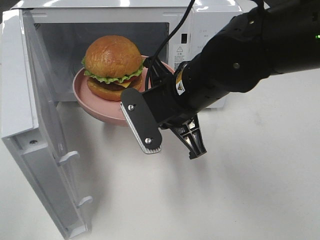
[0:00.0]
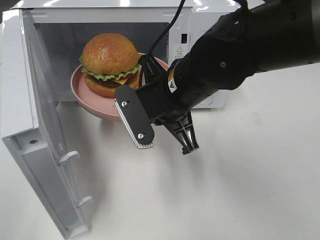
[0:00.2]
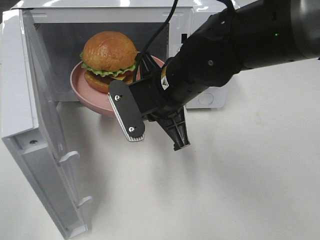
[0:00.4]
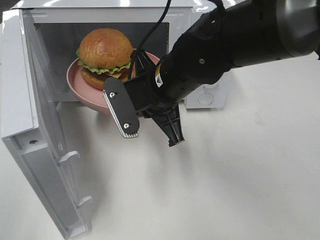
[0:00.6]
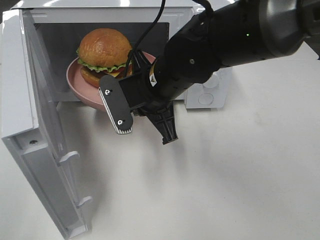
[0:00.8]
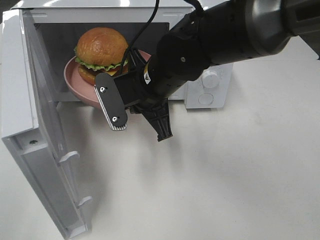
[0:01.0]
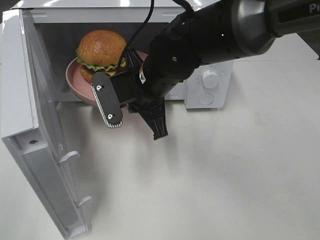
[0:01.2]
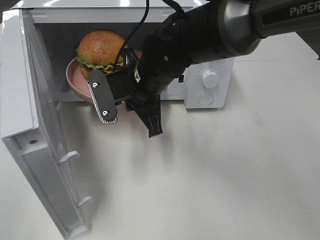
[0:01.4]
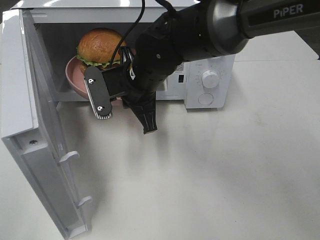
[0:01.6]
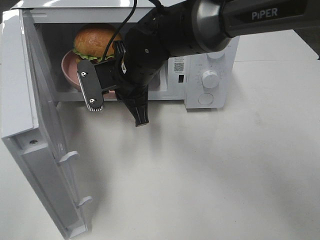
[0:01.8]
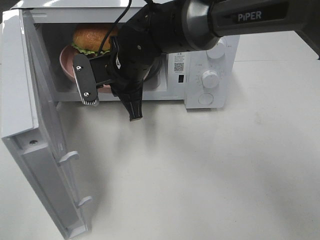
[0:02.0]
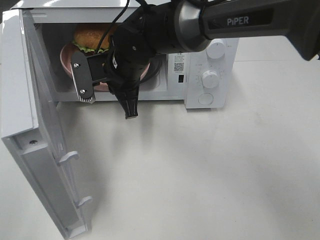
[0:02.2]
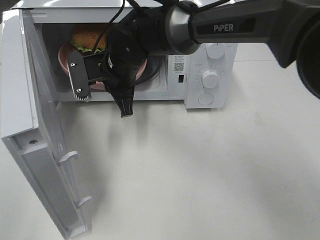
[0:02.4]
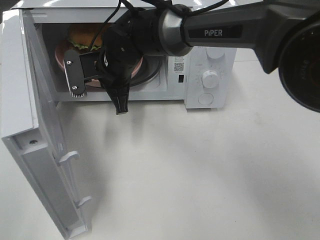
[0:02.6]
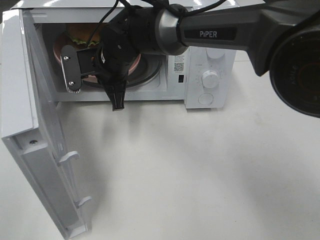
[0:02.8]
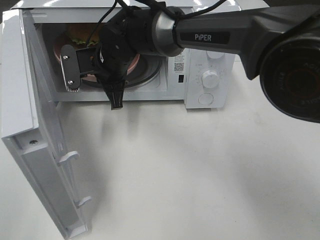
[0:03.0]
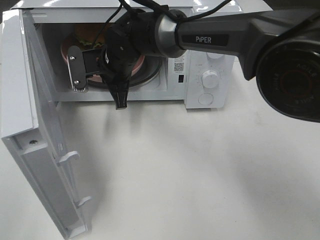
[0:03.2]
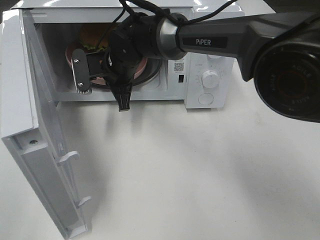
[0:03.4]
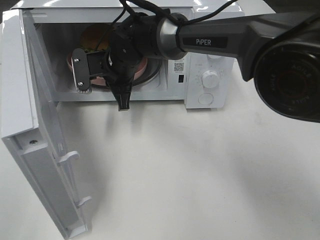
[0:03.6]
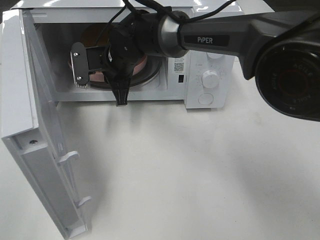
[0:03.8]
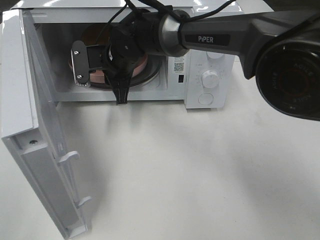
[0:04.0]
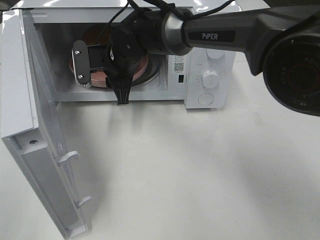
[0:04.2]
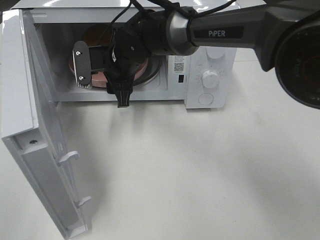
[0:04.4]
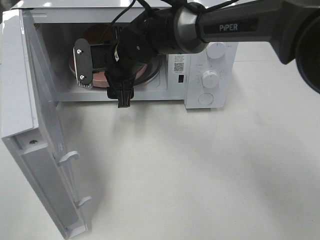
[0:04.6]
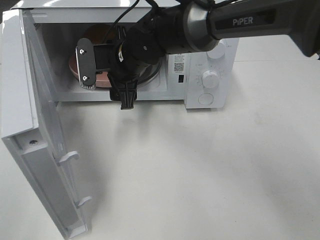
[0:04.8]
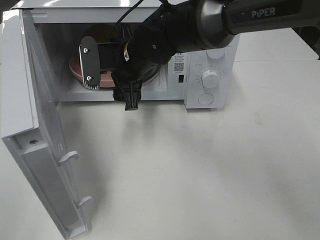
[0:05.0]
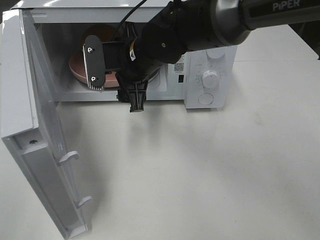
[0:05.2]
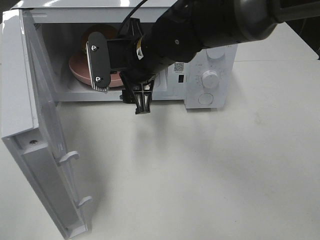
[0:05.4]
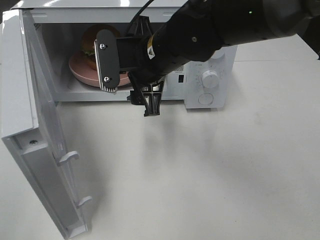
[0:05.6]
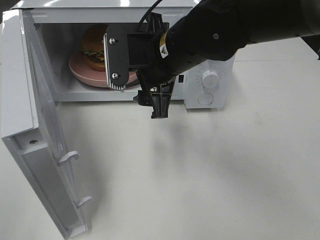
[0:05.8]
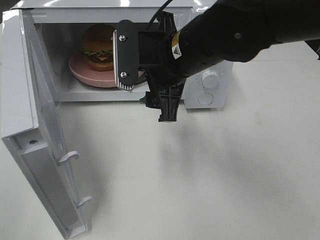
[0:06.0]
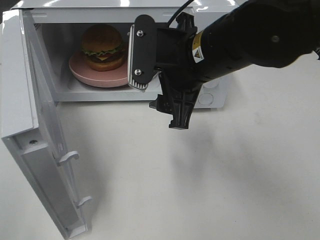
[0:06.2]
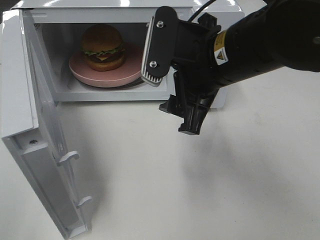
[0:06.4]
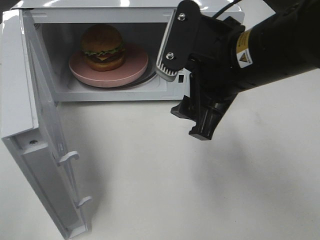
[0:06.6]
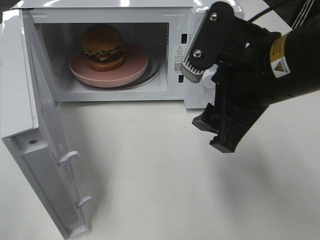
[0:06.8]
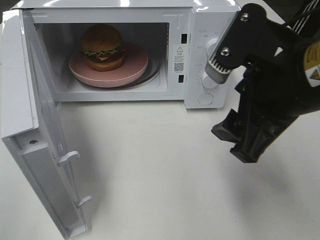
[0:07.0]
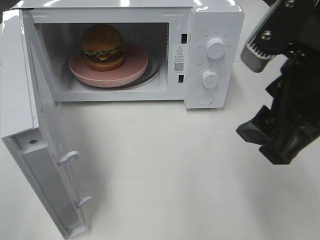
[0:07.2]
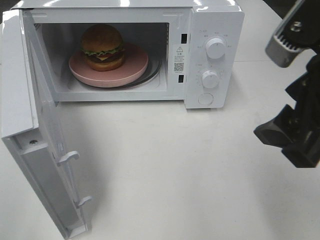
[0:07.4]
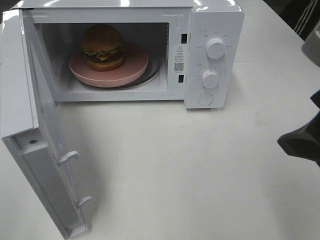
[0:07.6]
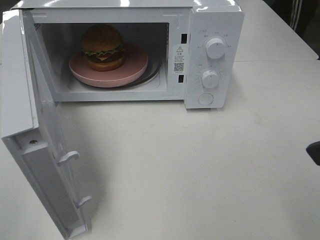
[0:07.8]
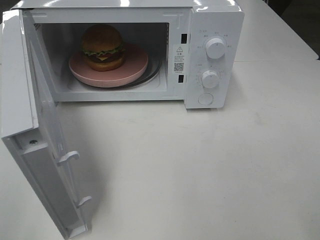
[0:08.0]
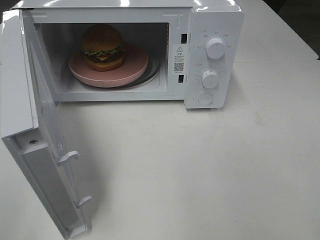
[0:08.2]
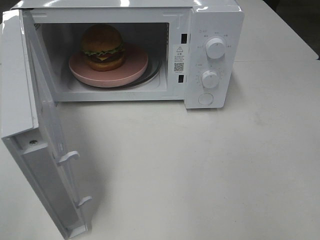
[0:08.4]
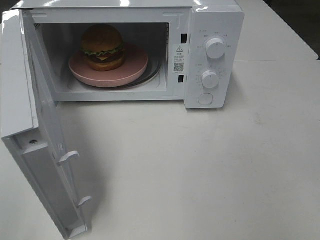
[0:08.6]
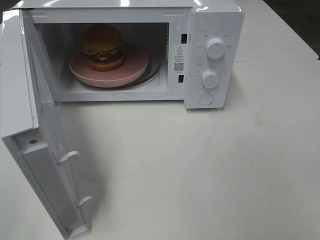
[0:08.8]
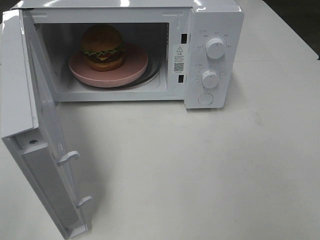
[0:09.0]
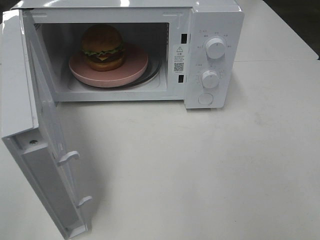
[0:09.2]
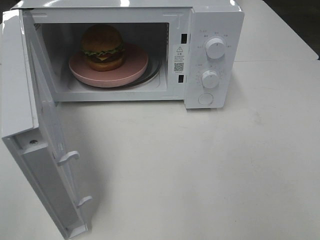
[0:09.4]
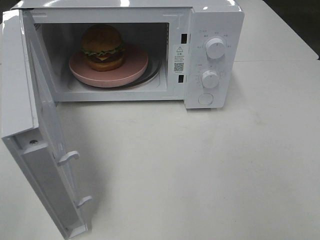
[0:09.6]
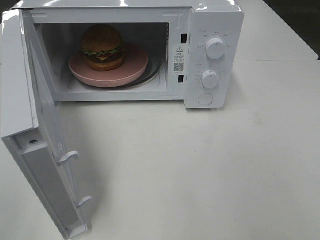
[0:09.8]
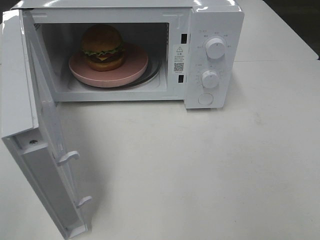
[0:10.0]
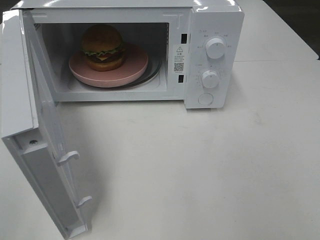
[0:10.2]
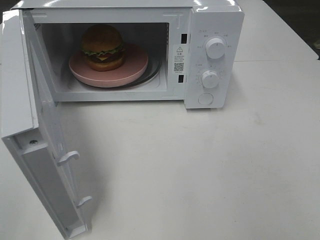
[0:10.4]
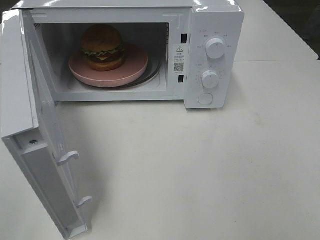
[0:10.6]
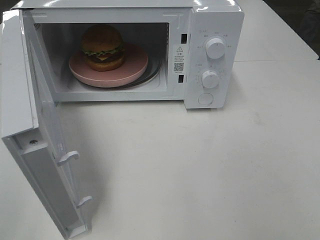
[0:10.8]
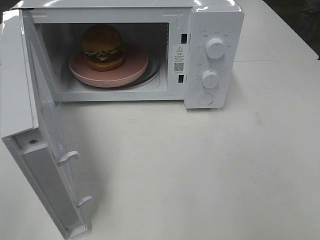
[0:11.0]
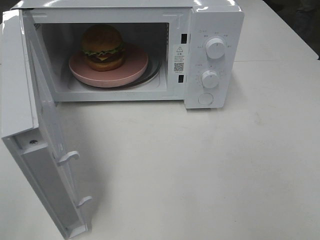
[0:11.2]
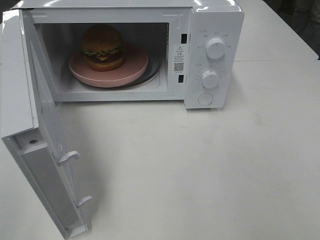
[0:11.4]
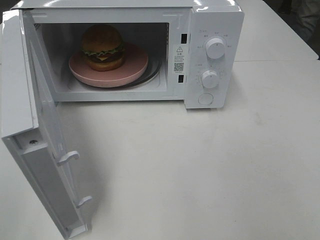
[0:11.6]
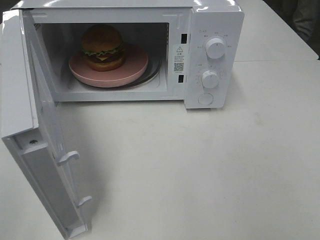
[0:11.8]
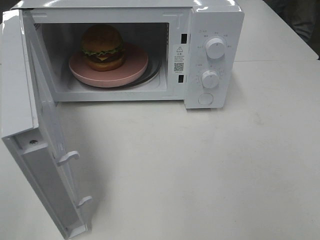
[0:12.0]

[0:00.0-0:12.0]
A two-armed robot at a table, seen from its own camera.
Task of the whole recording: Heat the burger.
Step, 0:00.0 to 0:04.2: Right hand: place the plate in the microwave.
0:00.0 to 0:01.6: The right gripper moves forward and to the left, about 10 cm.
0:01.6 to 0:03.0: The right gripper shifts about 10 cm forward and to the left.
0:03.0 to 0:04.4: The right gripper opens.
0:04.4 to 0:06.0: The right gripper heads backward, to the right and upward, covering about 15 cm.
0:06.0 to 0:07.6: The right gripper goes some 25 cm backward, to the right and upward.
0:07.6 to 0:09.0: The right gripper moves to the right and backward, roughly 15 cm.
0:10.4 to 0:12.0: Neither gripper changes place.

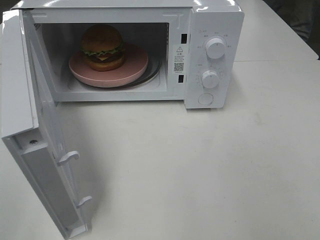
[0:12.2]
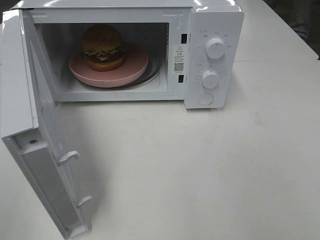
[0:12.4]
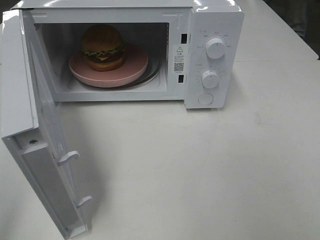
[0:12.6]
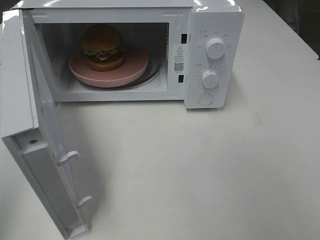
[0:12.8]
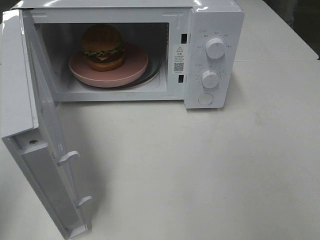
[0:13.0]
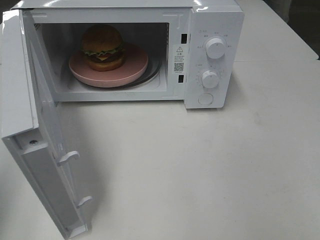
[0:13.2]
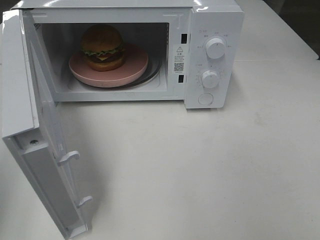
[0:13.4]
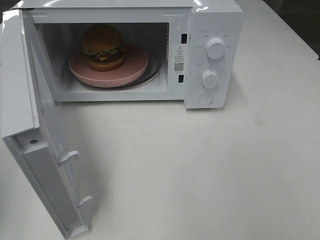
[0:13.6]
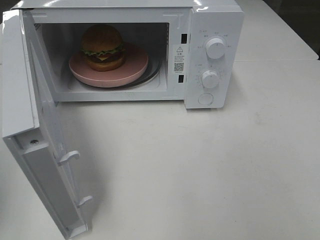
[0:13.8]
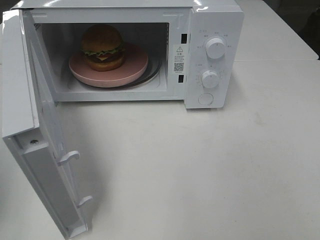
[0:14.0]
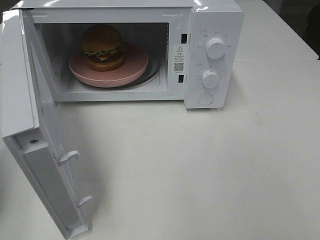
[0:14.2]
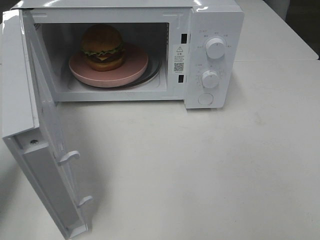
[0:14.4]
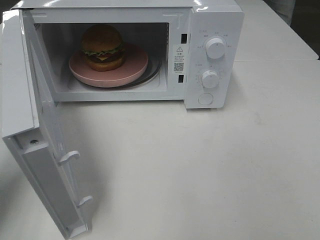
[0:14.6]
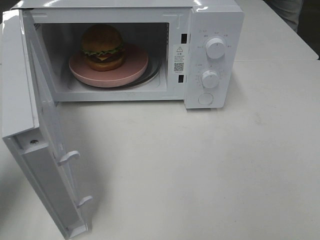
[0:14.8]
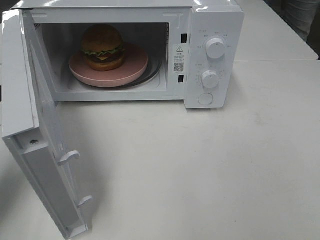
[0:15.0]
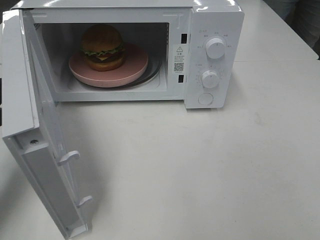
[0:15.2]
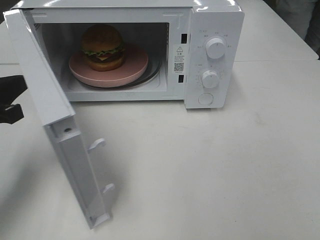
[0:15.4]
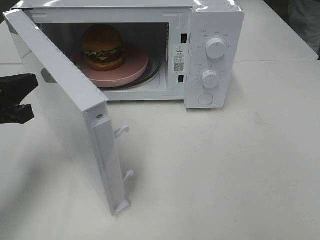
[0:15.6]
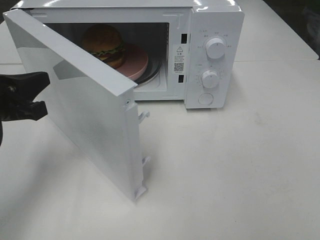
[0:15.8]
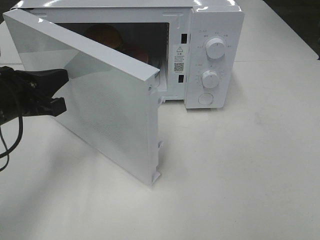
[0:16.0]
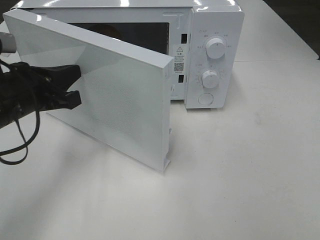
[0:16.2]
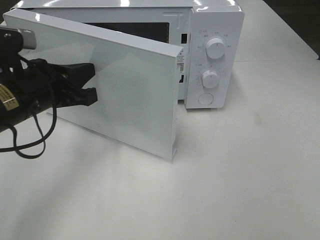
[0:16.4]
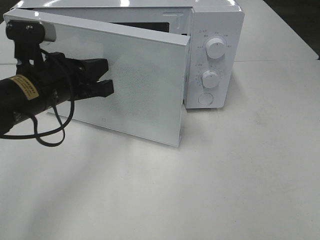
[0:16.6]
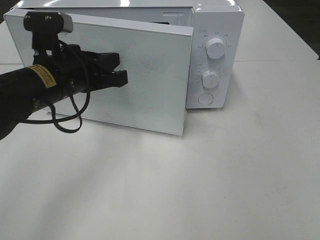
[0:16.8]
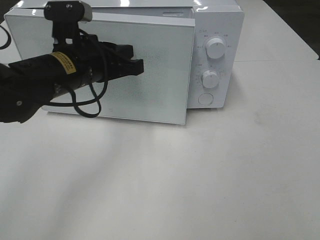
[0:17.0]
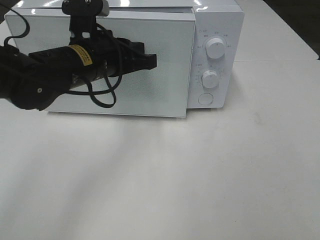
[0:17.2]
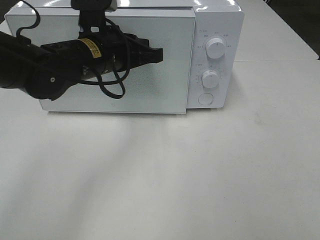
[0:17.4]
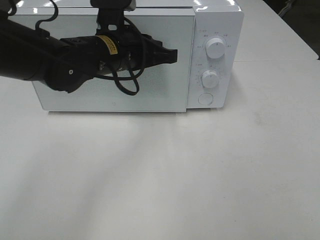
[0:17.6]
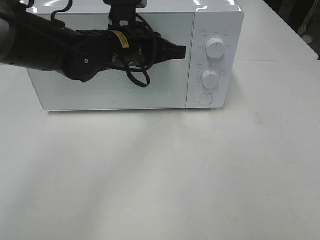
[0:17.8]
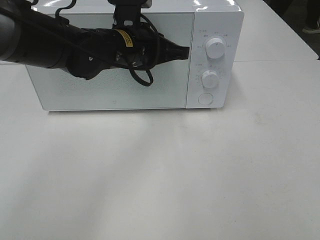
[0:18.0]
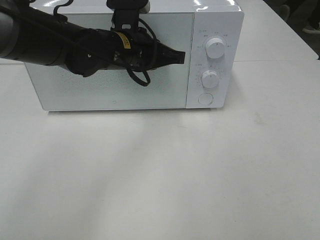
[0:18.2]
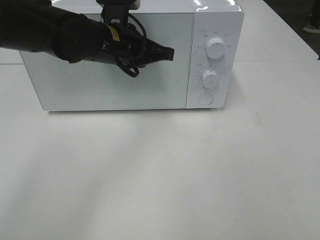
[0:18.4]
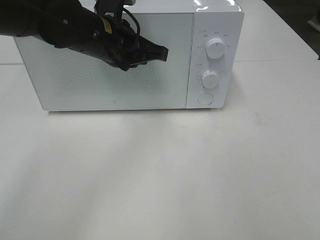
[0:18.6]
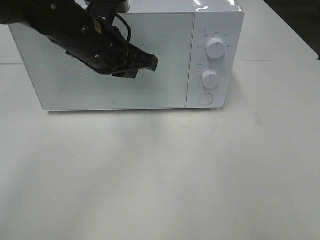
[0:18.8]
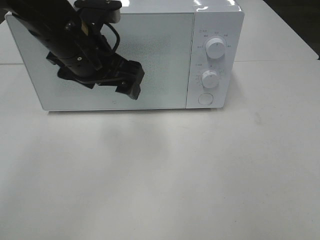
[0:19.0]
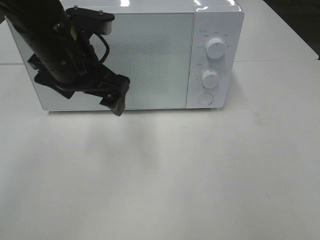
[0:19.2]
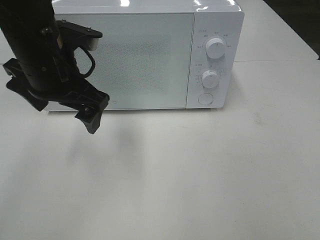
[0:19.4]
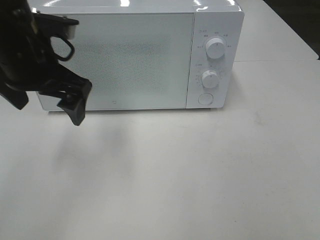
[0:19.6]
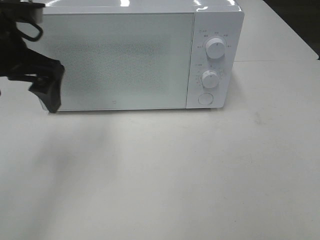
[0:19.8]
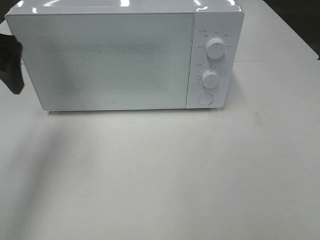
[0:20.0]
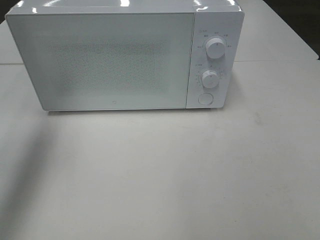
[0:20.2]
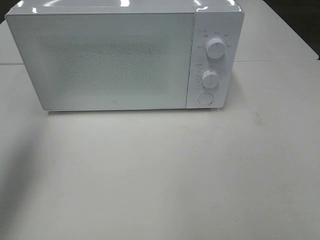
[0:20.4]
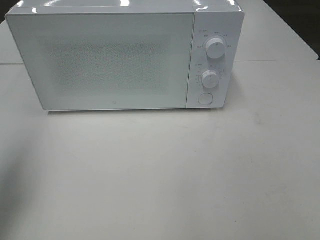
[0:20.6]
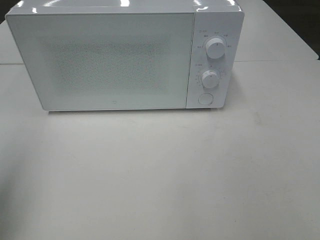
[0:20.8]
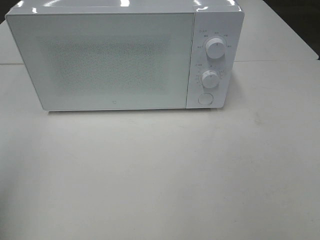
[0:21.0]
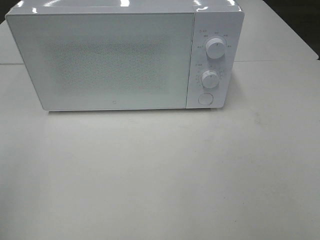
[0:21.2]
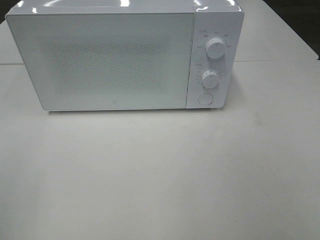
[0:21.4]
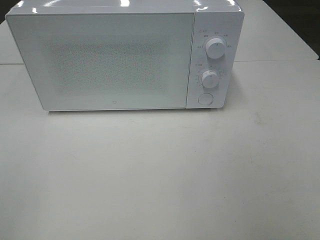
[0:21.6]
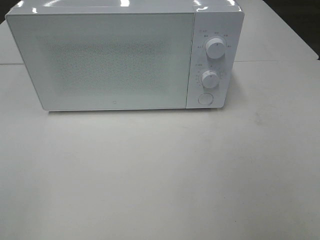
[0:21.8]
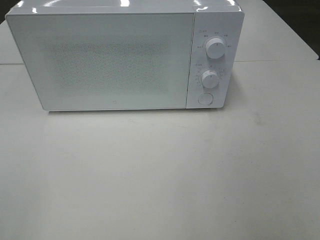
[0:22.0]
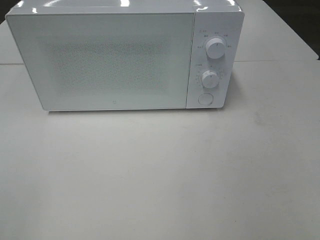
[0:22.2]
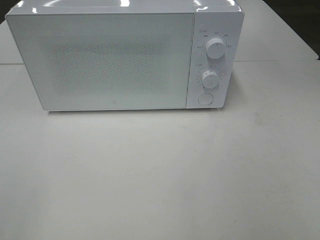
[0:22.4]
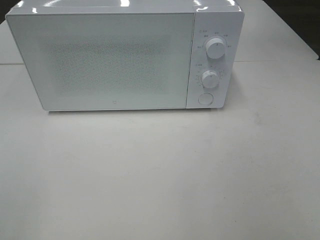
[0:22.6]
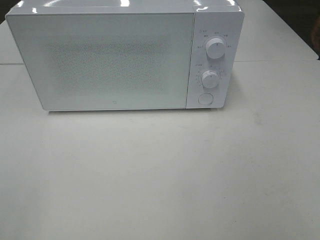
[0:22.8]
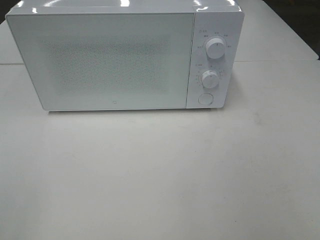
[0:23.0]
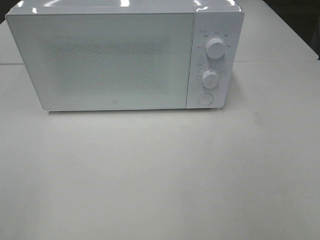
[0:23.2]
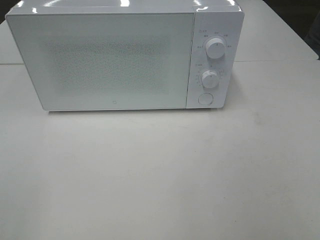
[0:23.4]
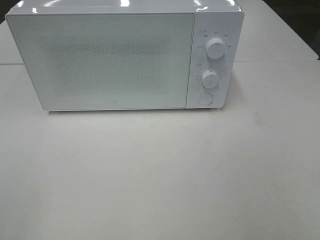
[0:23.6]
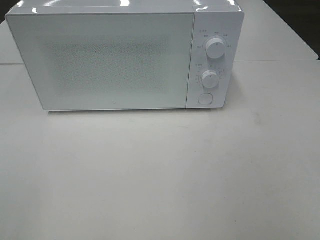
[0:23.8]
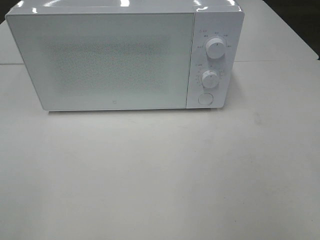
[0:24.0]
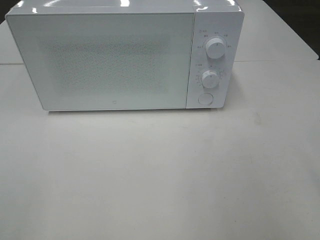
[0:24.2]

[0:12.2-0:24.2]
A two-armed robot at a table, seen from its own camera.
Task of the whole recording: Heat the burger.
Step, 0:12.2 to 0:18.4: Left hand: close the microwave door.
0:13.8 to 0:15.2: The left gripper moves forward, downward and to the right, approximately 10 cm.
0:15.2 to 0:16.6: The left gripper moves to the right, approximately 15 cm.
0:16.6 to 0:18.2: The left gripper heads to the right and forward, covering some 15 cm.
0:18.2 to 0:19.8: The left gripper shifts some 20 cm to the left, upward and backward, and opens up.
0:19.8 to 0:21.2: The left gripper travels backward and to the left by some 25 cm.
